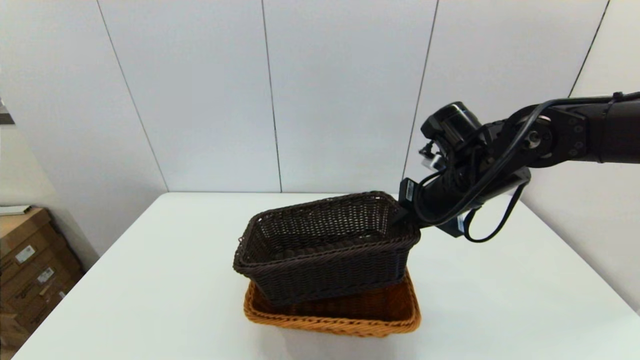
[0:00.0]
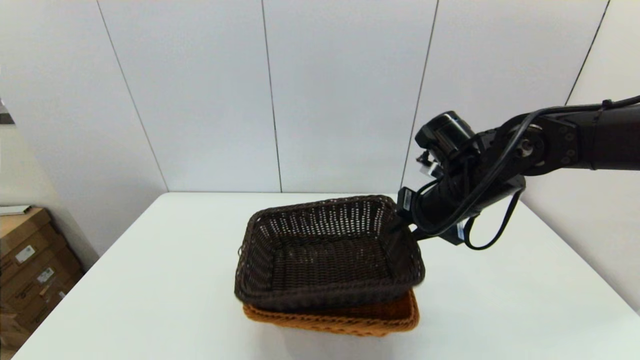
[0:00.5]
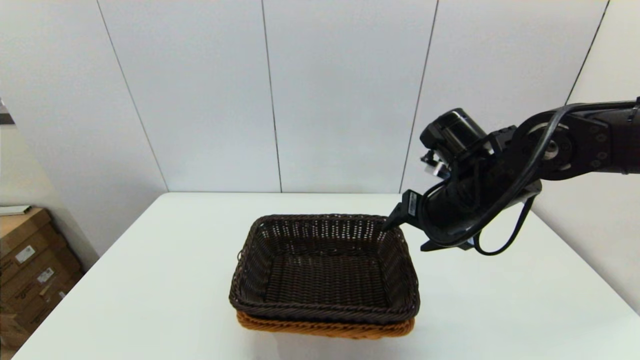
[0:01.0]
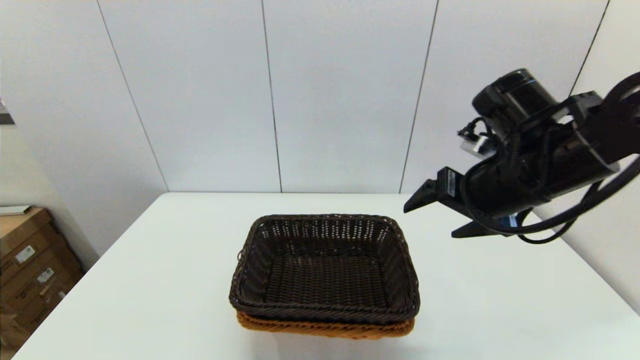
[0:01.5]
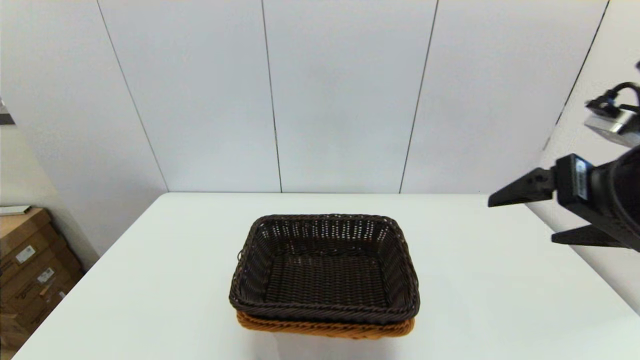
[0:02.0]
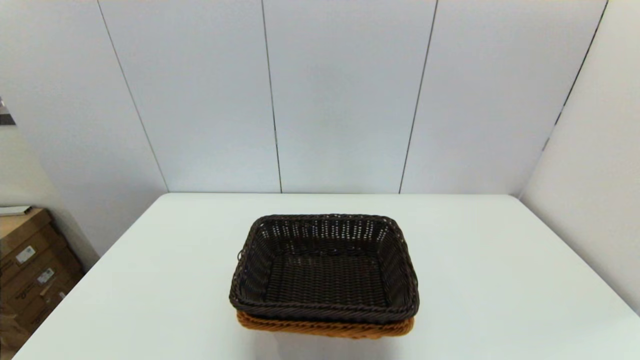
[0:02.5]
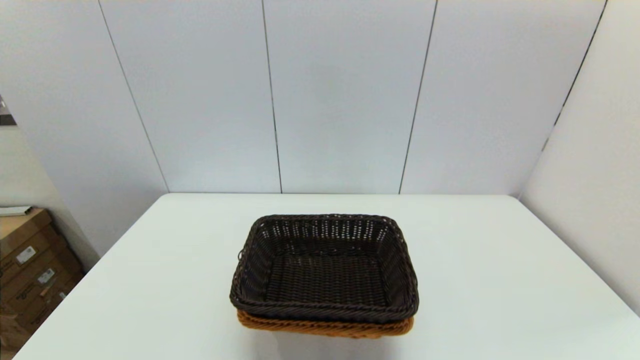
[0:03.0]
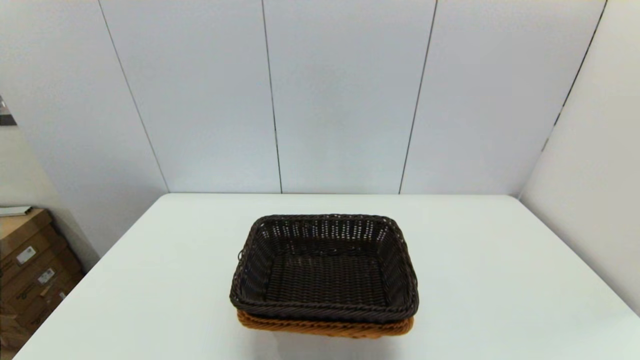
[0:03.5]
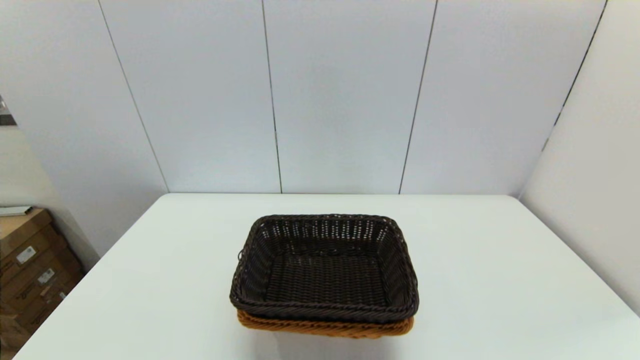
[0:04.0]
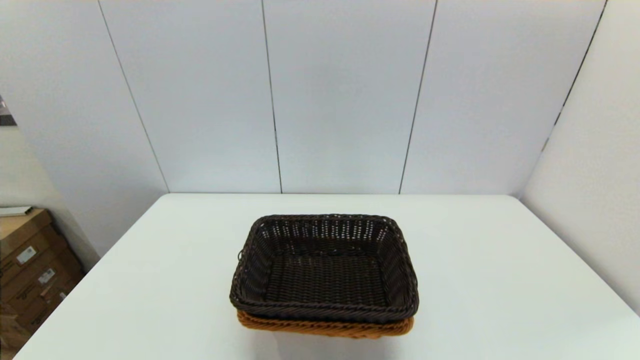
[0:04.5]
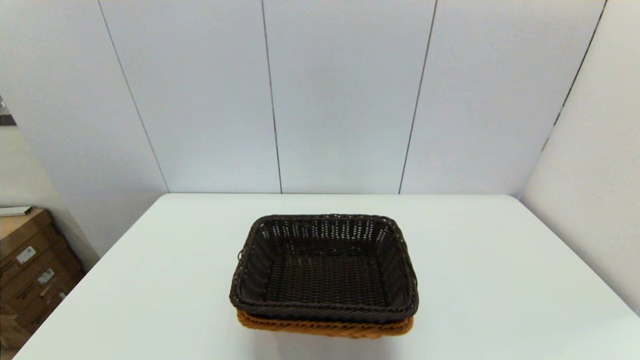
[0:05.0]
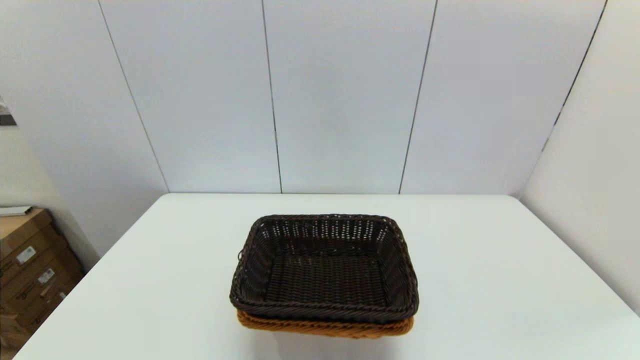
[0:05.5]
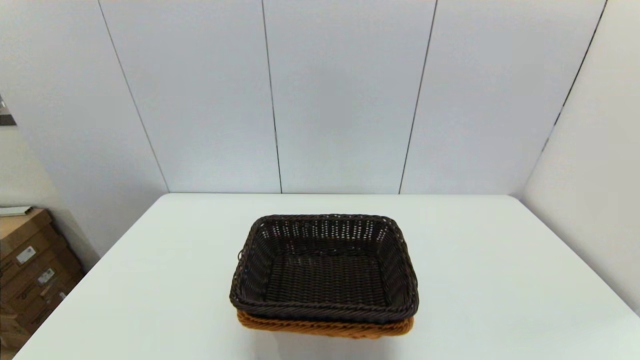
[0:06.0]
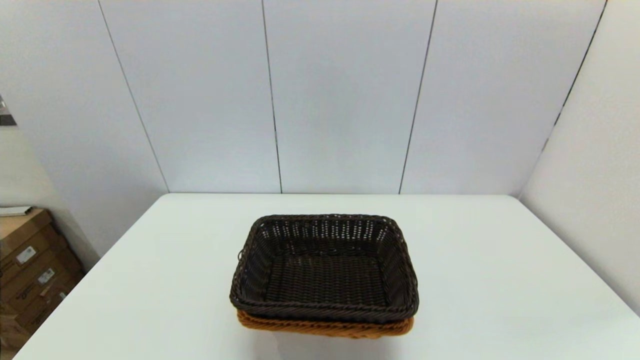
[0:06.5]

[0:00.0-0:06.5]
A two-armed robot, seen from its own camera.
Task of the whole recording: stack a basket on top of another basket.
0.0 to 2.0 s: The right gripper travels backward, upward and to the right by about 20 cm, and opens its fingers.
2.0 to 4.5 s: The right gripper shifts approximately 30 cm backward and downward.

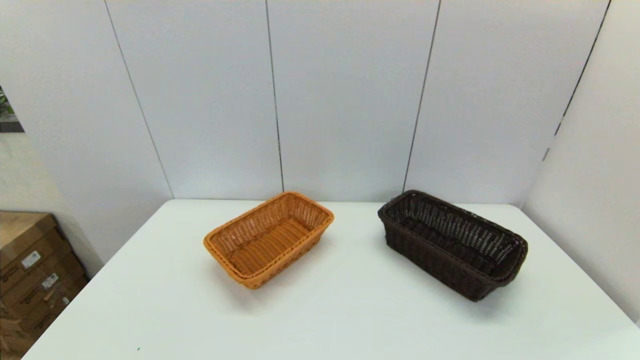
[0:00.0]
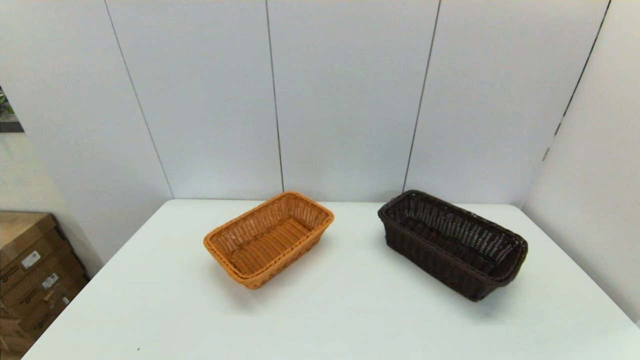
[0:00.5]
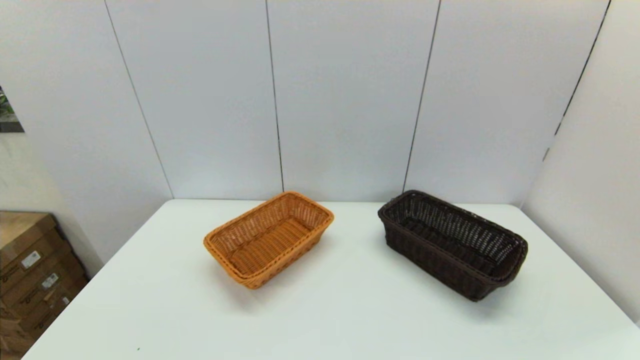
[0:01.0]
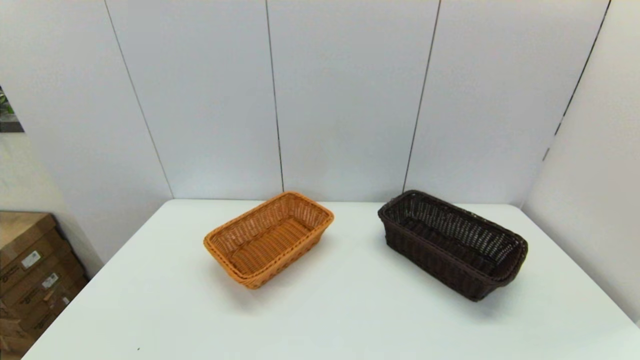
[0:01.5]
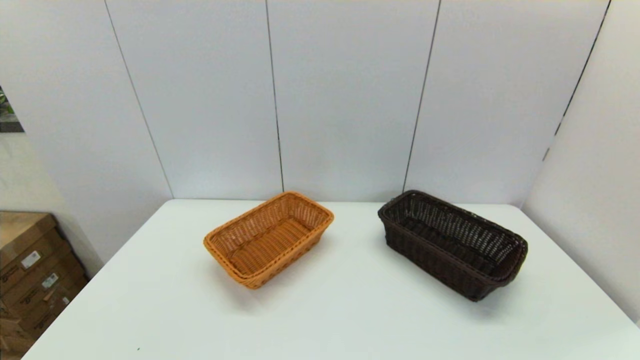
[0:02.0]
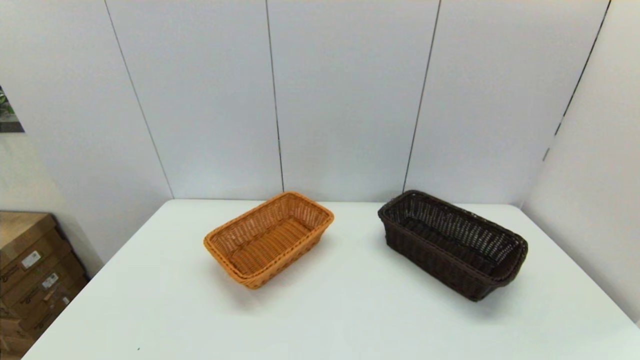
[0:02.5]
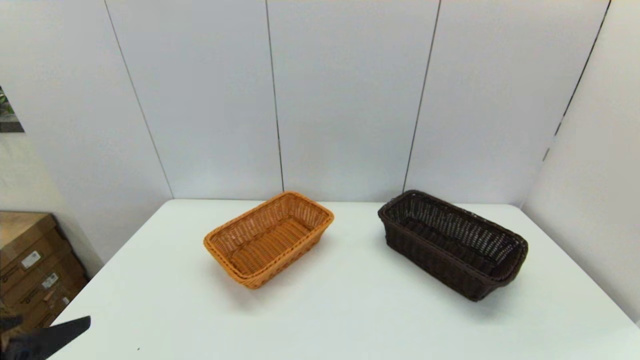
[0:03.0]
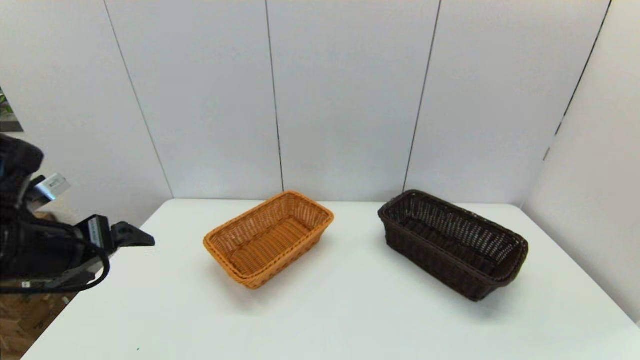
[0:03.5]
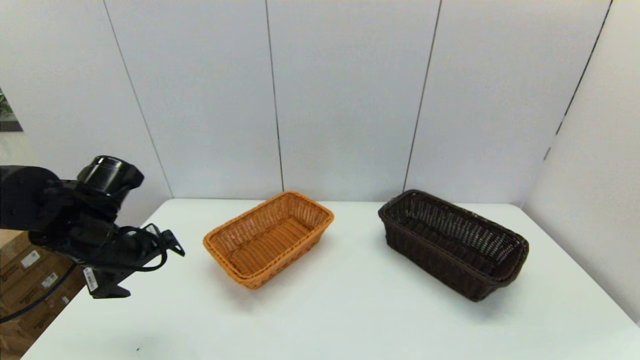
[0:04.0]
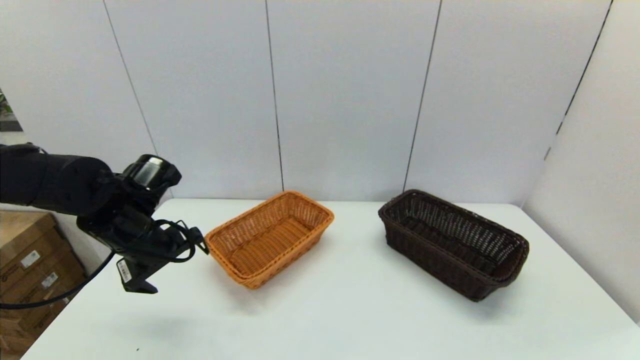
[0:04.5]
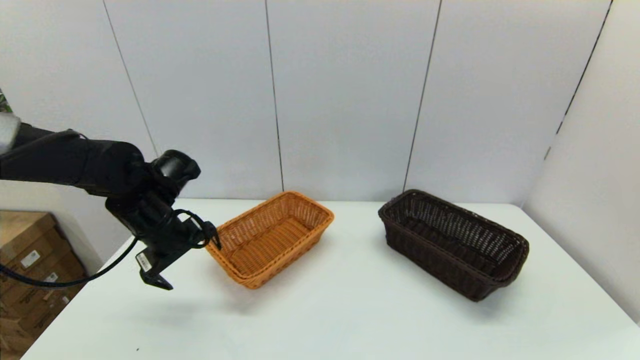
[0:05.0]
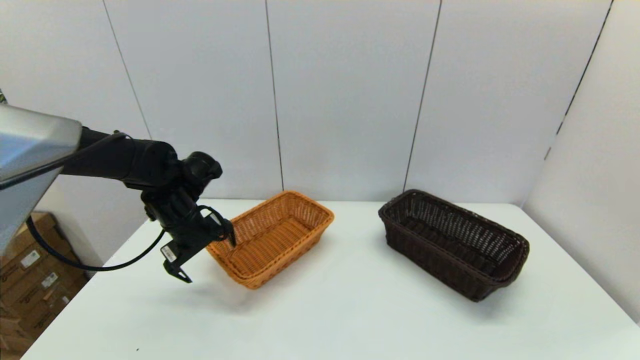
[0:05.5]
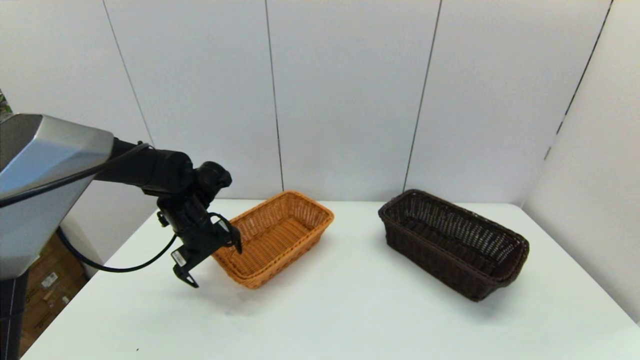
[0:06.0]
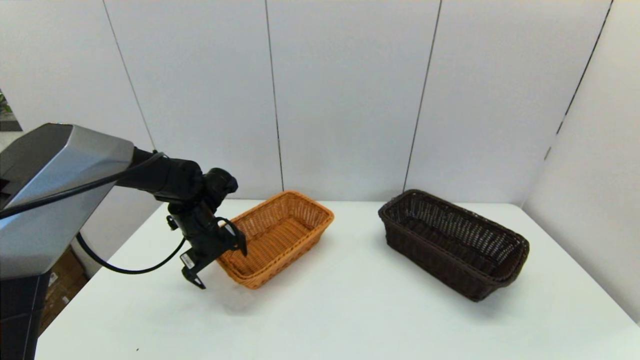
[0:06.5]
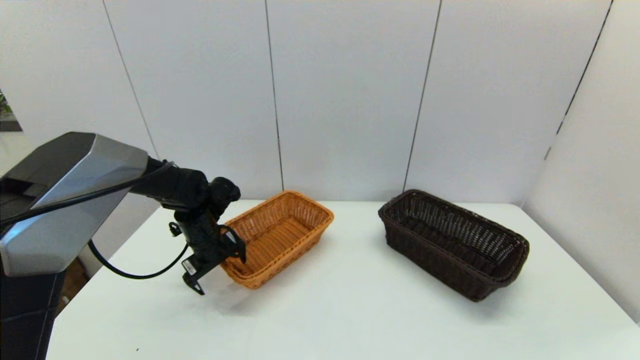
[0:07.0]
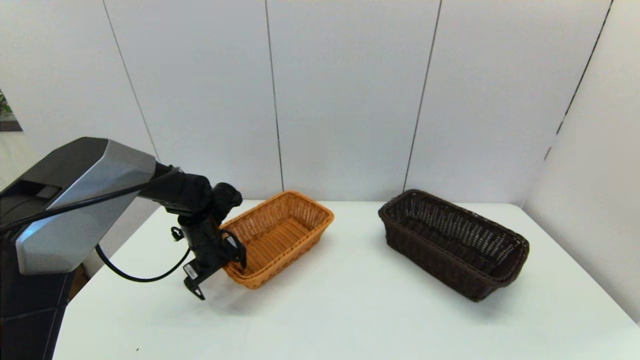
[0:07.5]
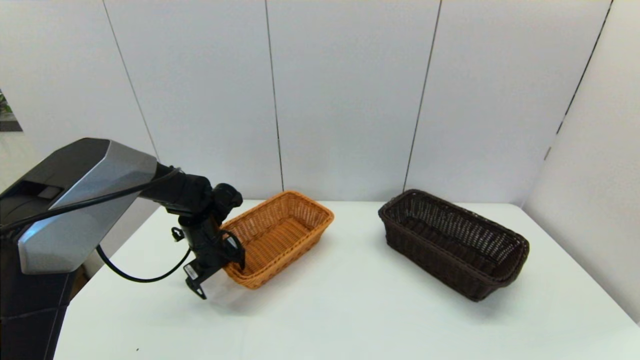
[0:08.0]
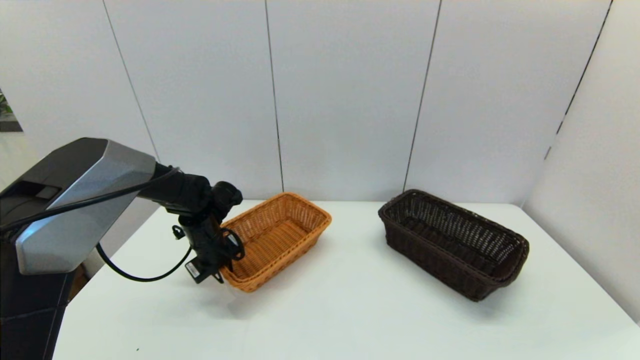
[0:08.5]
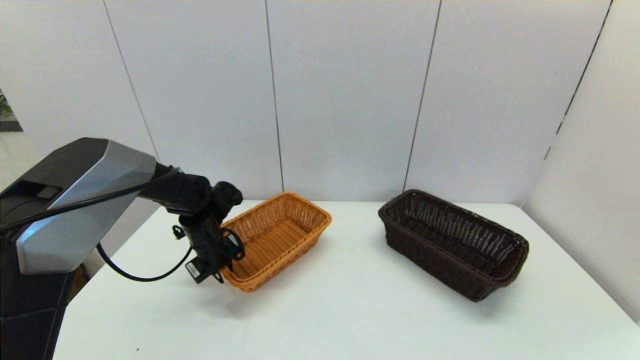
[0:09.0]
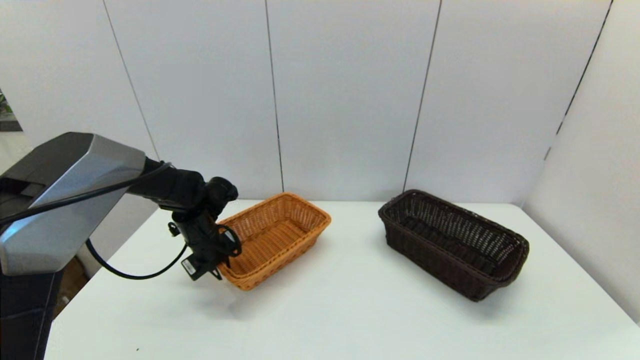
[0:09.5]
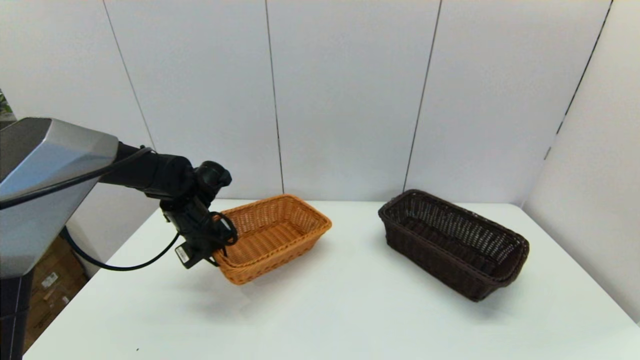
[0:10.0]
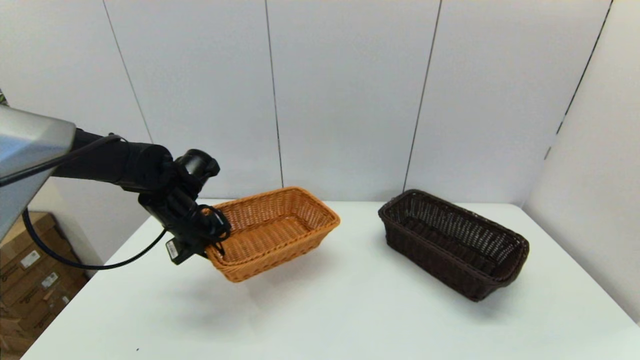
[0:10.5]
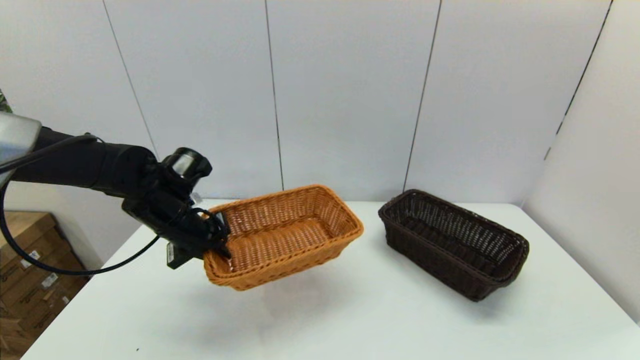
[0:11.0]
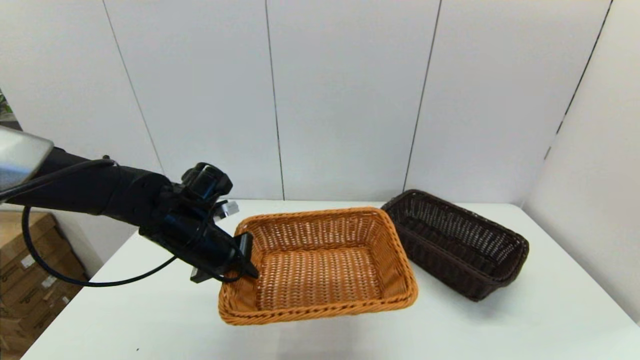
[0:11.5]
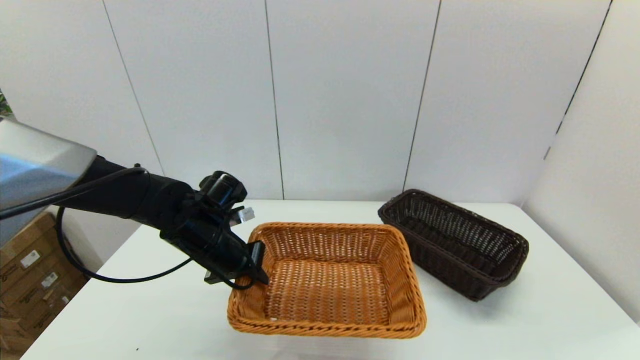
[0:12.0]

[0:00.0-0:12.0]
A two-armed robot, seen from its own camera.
Task of the whole recording: stack a basket on top of another basket.
Step, 3.0 to 8.5 s: Grasp the light basket with the left gripper.
2.0 to 4.0 s: The left gripper goes roughly 30 cm forward.
4.0 to 6.0 s: The left gripper shifts approximately 10 cm forward and to the right.
6.0 to 8.0 s: The left gripper heads downward, covering roughly 5 cm.
8.0 to 10.0 s: The left gripper ends up approximately 5 cm from where it was, and closes its fingers.
10.0 to 12.0 s: The left gripper goes roughly 5 cm backward.

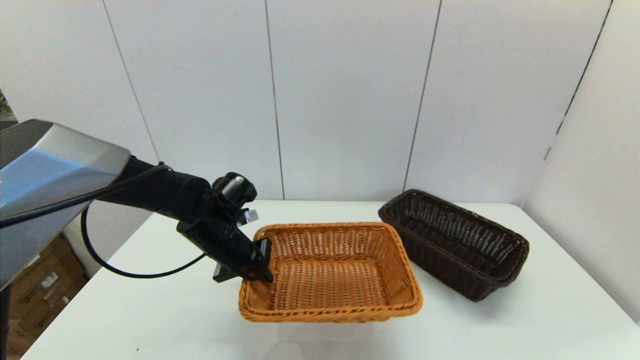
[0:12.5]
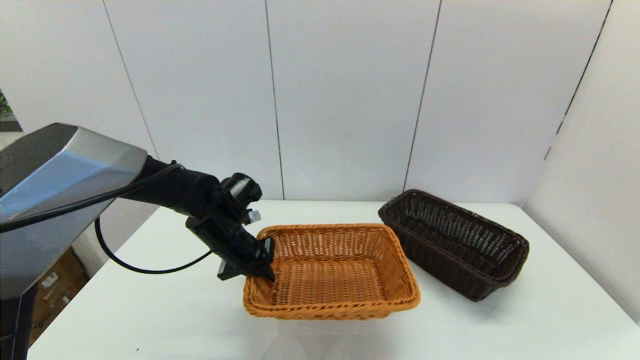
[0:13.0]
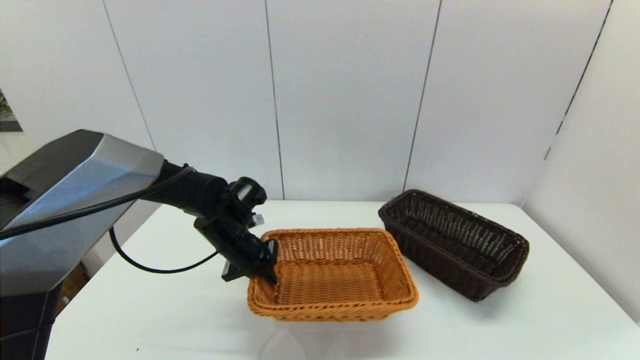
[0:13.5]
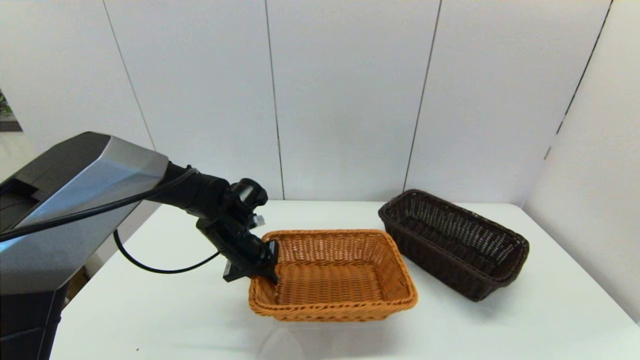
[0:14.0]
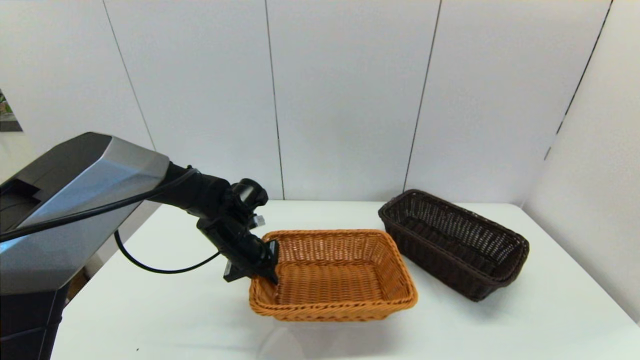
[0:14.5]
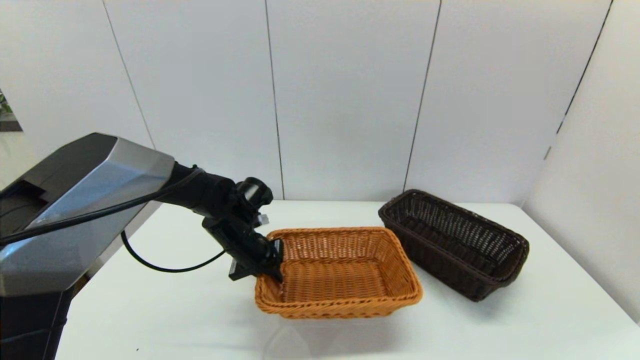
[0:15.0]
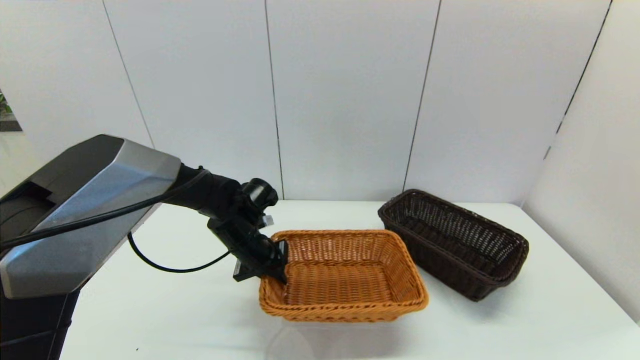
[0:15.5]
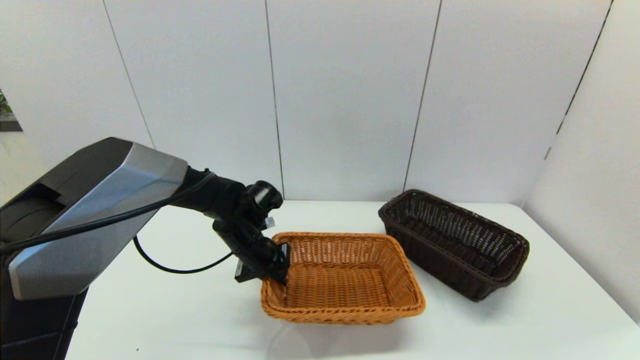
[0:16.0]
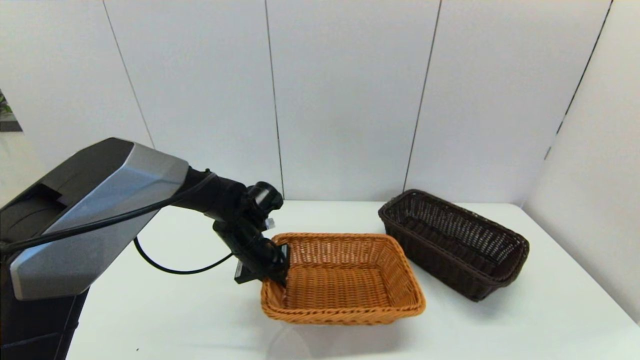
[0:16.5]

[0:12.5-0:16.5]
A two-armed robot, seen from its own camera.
Task of the whole recording: stack a basket on top of another basket.
12.5 to 16.5 s: The grippers move only a little.
